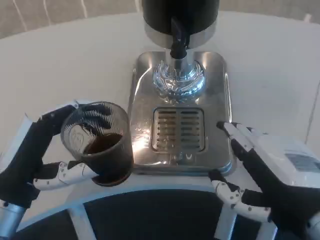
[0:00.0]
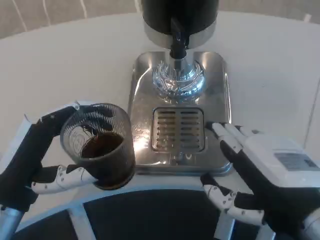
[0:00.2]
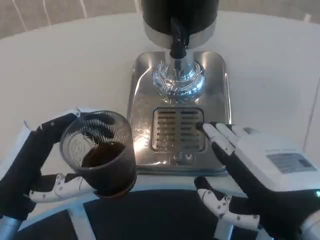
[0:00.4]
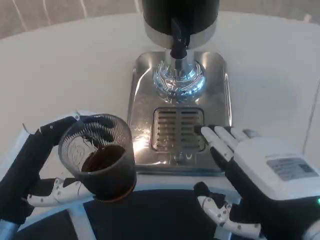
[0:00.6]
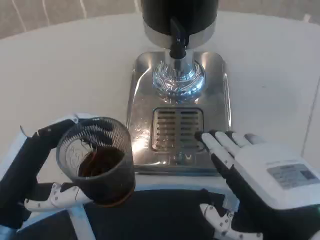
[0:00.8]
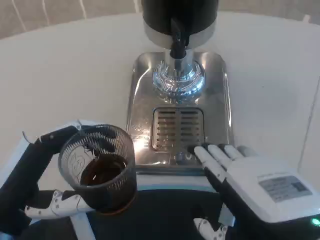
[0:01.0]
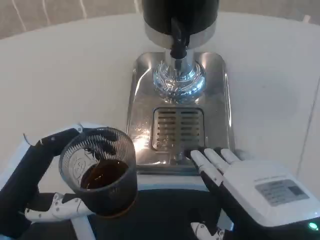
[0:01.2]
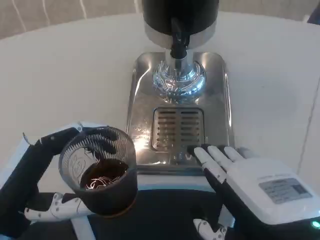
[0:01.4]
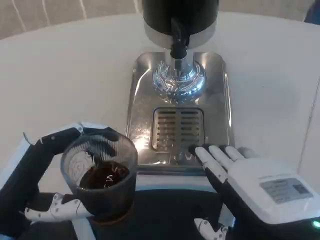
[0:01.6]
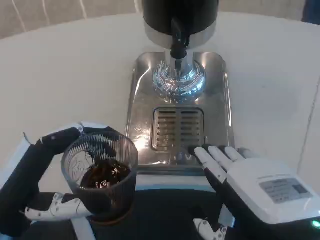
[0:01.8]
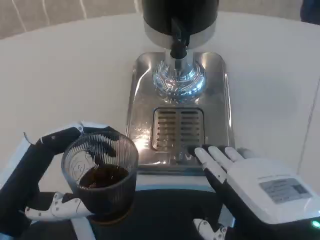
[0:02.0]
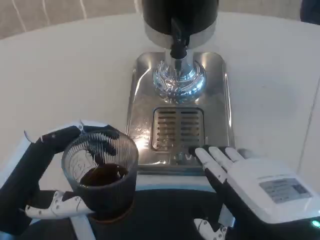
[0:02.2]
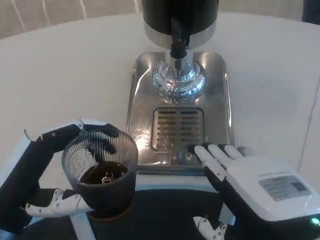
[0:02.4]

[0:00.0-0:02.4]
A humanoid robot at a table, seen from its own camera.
Task of the whole recording: Grasp the cup under the faucet to collect the drink, then remove the cup.
0:01.2 to 0:02.4: Both hands stay put.

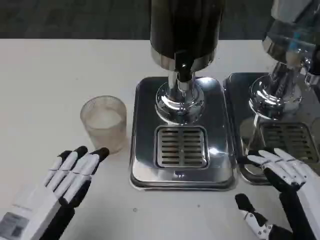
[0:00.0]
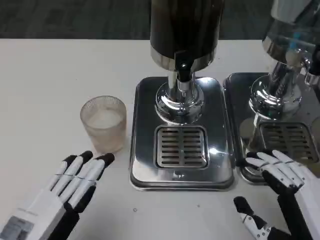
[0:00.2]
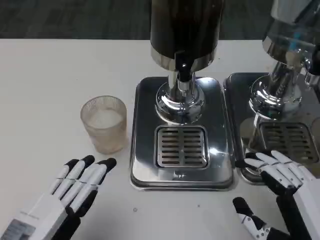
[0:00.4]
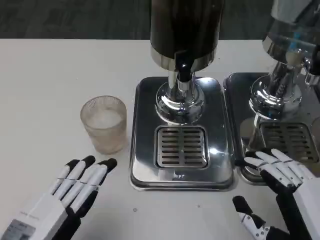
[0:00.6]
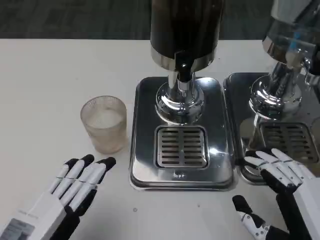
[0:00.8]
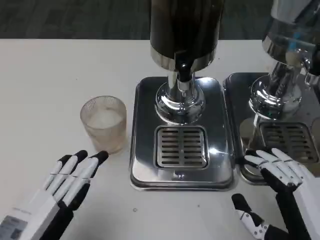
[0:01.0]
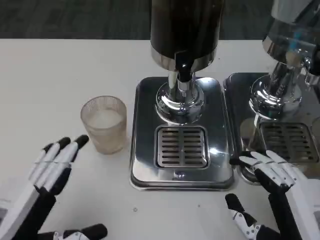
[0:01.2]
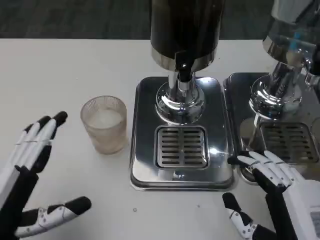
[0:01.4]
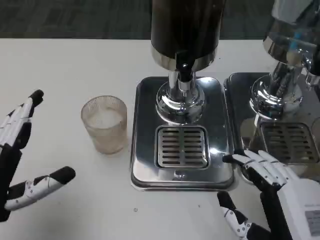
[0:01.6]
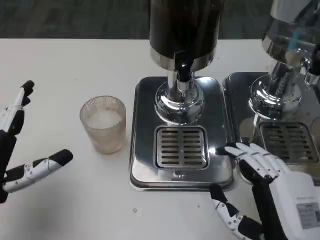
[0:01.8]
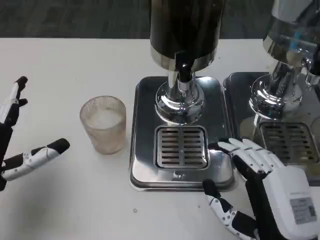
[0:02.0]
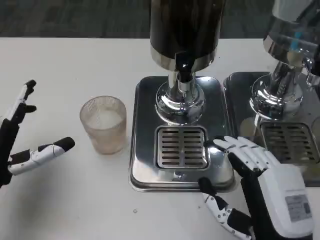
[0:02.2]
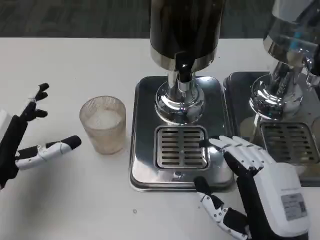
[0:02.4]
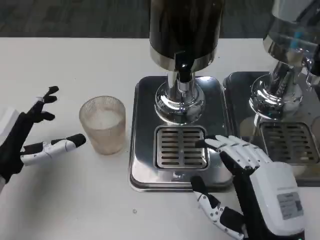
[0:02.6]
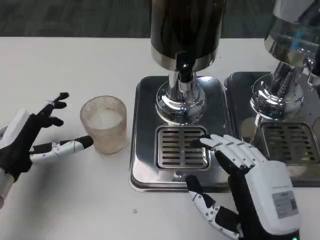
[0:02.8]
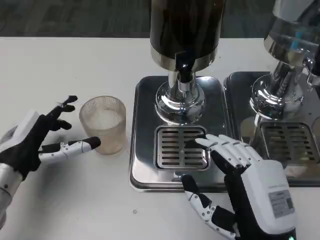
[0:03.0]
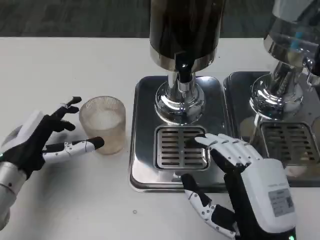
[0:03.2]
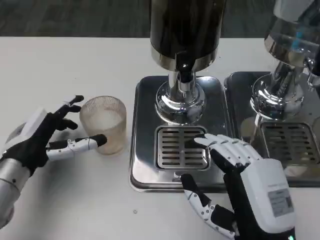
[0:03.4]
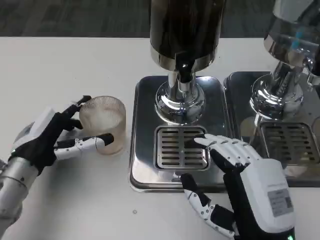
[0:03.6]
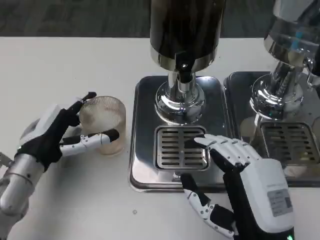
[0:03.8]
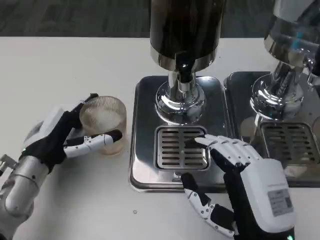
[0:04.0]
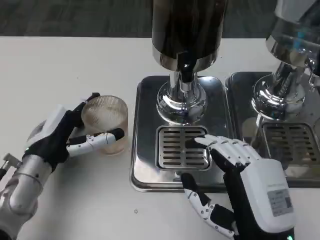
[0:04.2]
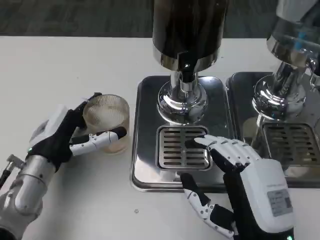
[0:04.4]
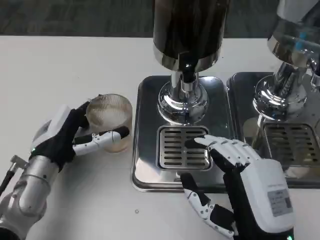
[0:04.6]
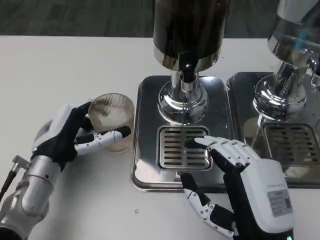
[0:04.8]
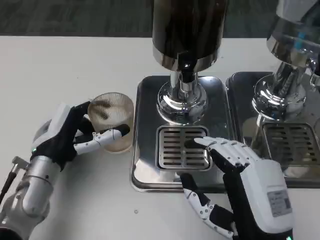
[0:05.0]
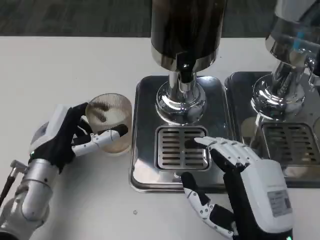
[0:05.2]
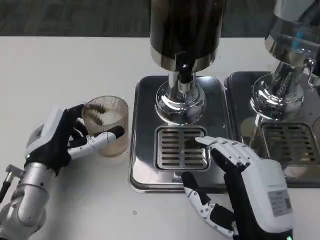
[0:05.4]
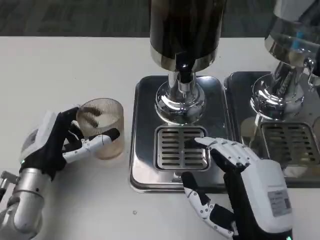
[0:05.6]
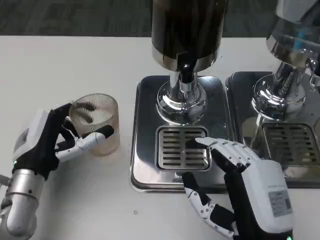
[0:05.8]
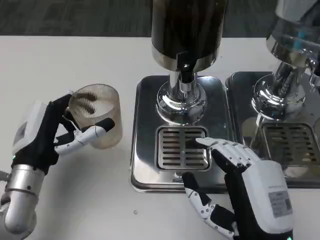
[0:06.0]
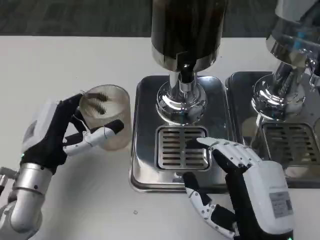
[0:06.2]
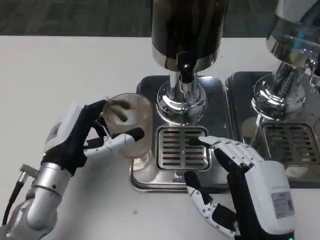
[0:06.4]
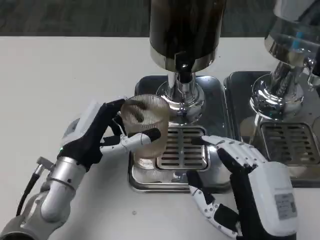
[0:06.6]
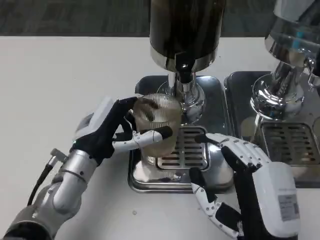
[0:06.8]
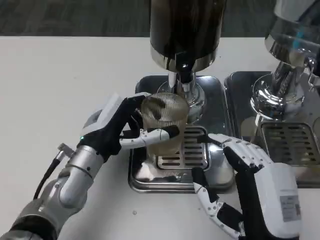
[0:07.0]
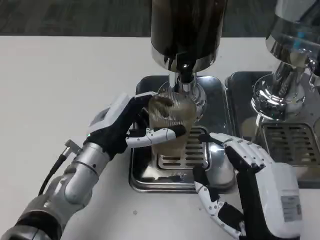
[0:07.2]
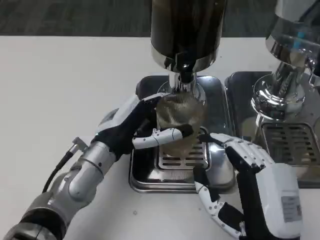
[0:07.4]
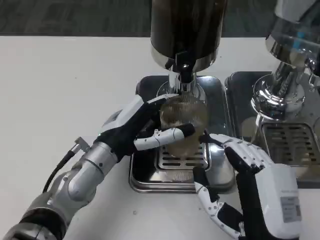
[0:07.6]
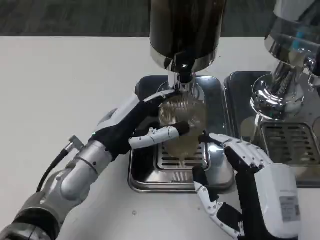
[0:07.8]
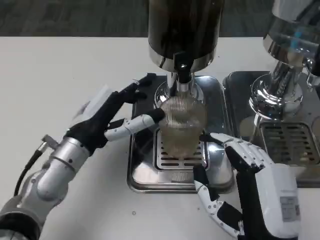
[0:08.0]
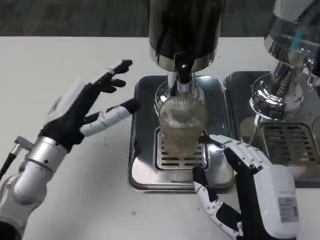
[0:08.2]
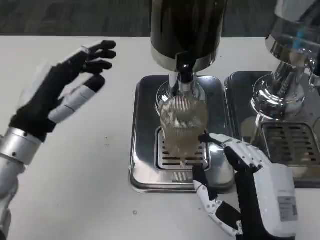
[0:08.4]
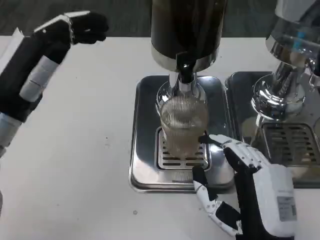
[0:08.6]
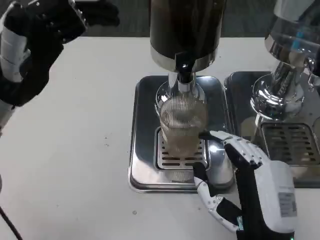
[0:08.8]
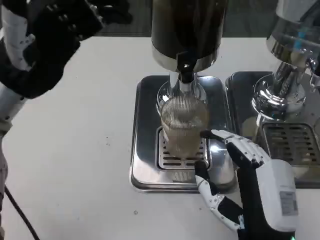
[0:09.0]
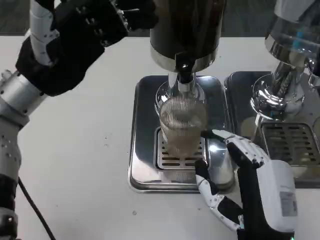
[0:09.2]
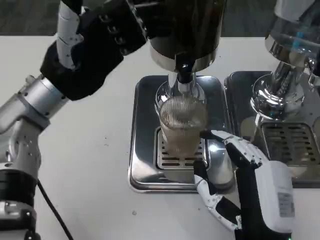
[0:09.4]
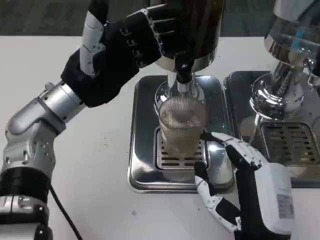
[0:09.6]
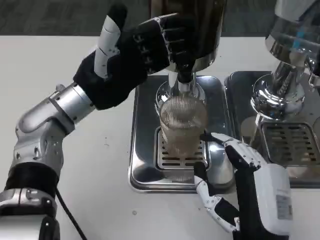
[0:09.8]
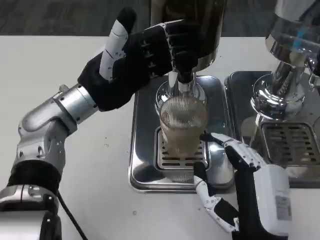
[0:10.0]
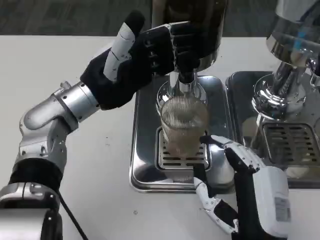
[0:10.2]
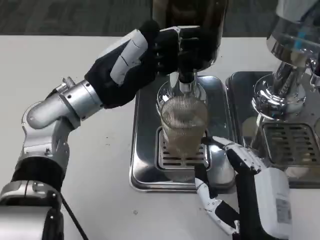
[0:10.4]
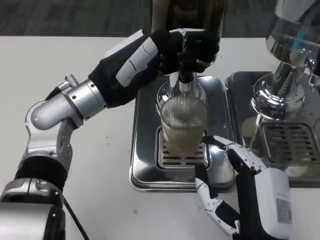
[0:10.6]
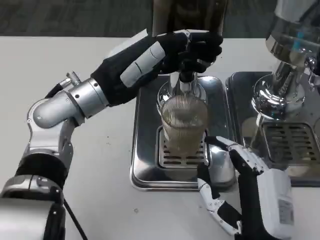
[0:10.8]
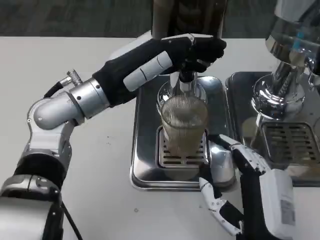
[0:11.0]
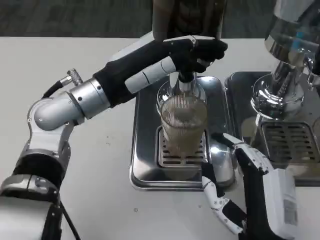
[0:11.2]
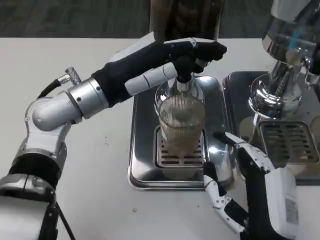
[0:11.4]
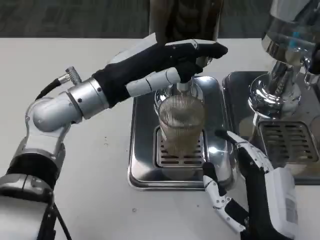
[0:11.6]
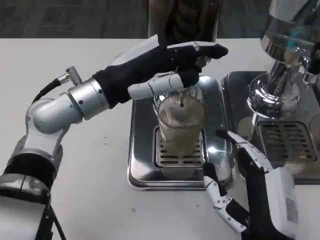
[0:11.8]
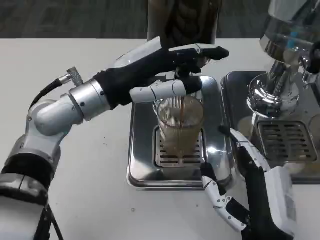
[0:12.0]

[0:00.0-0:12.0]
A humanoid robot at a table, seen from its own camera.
Task of the whole recording: Grasp the cup under the faucet to collect the drink, then remove the cup.
0:00.0 to 0:01.6: The left hand goes some 5 cm forward.
0:01.6 to 0:03.0: The left hand heads forward, covering approximately 10 cm.
0:03.0 to 0:04.4: The left hand changes place by approximately 5 cm.
0:04.4 to 0:06.0: The hands make only small movements.
0:06.0 to 0:07.6: The left hand travels to the right by about 10 cm.
0:07.6 to 0:09.0: The left hand is displaced upward and to the left by roughly 15 cm.
0:09.0 to 0:10.4: The left hand heads to the right, covering about 5 cm.

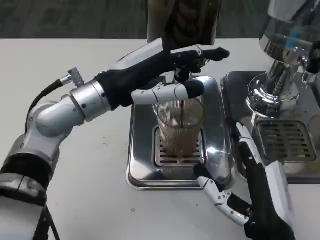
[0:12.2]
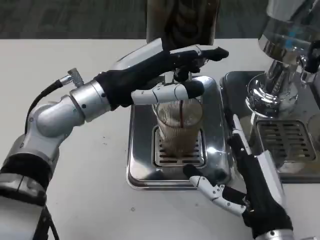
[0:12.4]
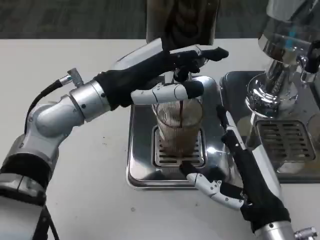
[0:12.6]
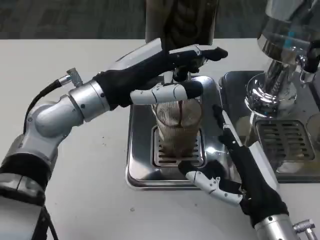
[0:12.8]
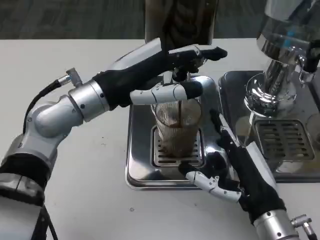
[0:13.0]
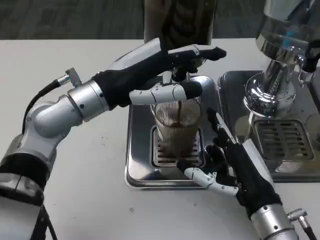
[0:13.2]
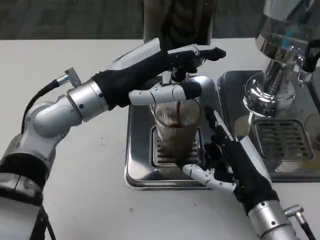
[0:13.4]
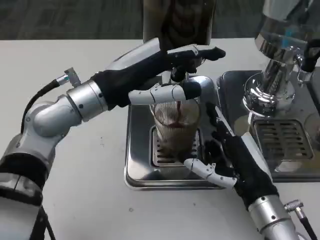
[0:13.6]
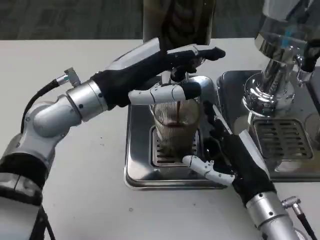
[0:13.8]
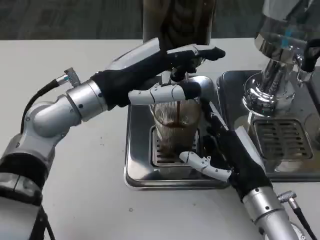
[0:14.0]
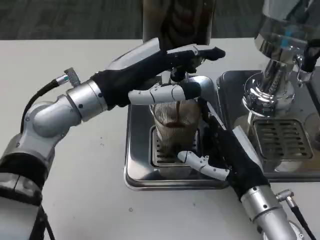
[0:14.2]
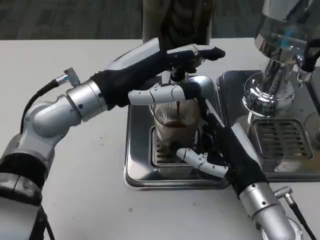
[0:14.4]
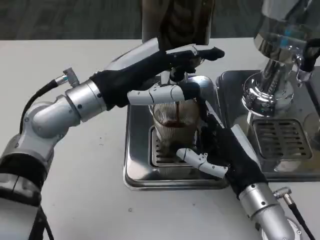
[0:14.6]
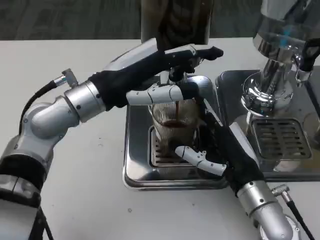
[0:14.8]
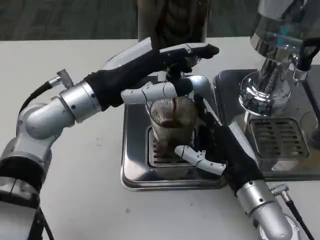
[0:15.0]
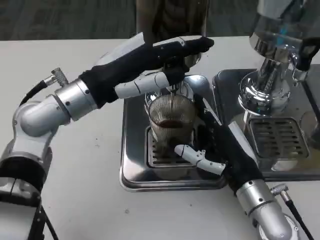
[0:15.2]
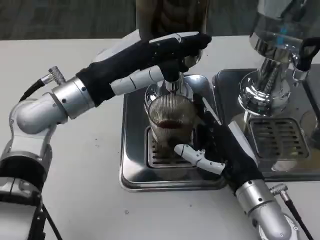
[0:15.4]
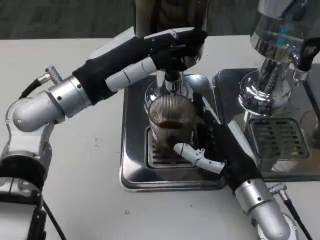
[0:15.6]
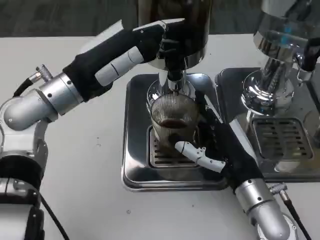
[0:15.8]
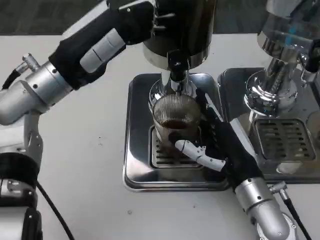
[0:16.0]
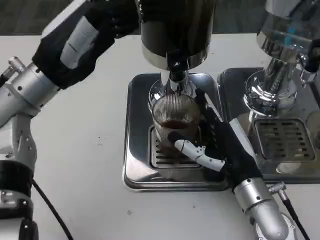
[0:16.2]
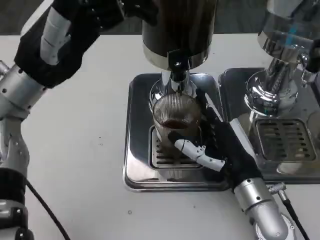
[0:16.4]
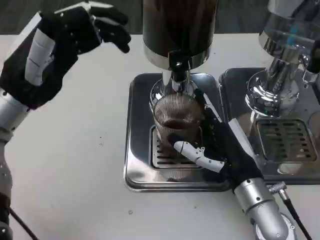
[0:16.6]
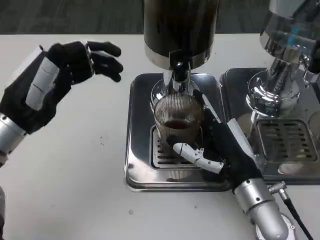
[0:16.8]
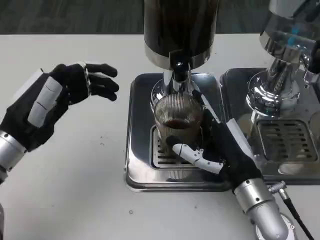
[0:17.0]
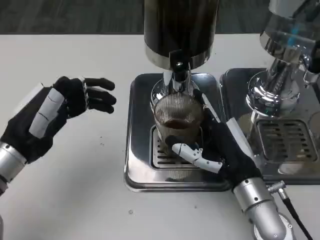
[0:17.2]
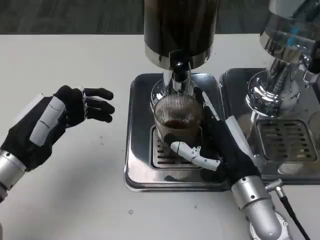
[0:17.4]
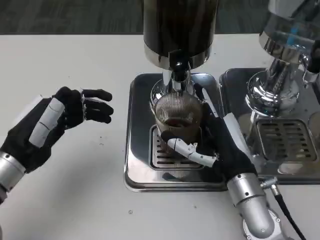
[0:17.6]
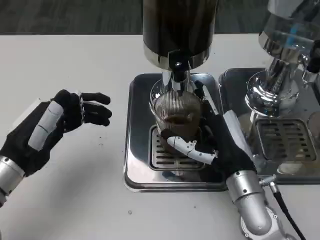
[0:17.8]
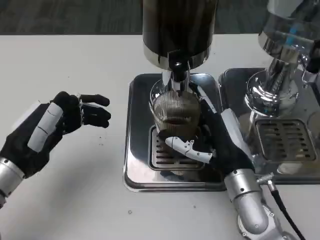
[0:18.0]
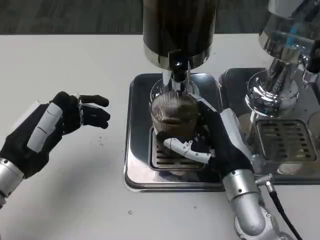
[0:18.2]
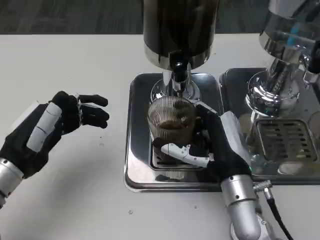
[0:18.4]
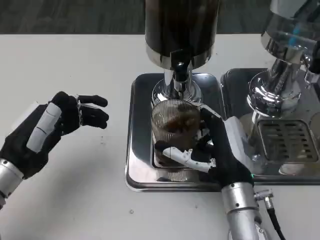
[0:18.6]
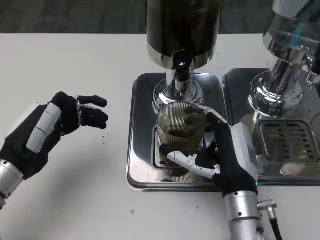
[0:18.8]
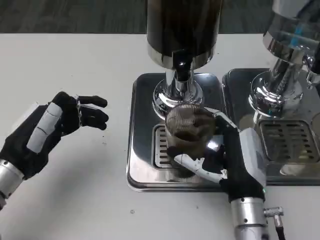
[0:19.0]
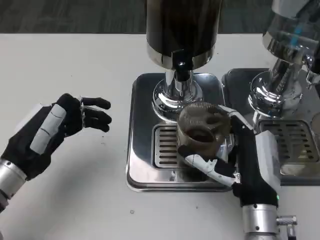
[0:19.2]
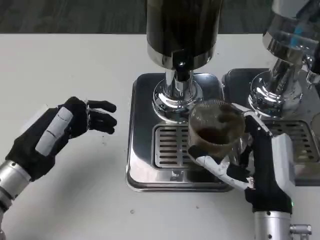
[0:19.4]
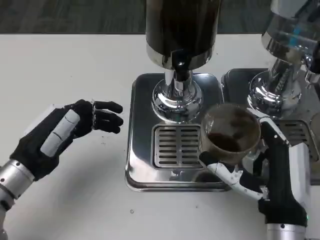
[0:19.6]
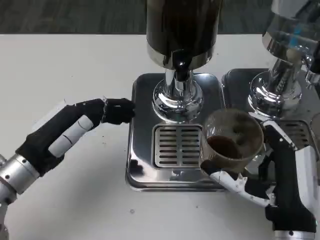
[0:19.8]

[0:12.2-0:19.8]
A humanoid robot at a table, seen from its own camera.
Task of the whole recording: Grasp the cup under the faucet to collect the drink, then remove the cup.
0:12.2 to 0:13.8: The right hand moves forward, approximately 10 cm.
0:15.2 to 0:16.8: The left hand heads to the left and backward, covering roughly 10 cm.
0:16.8 to 0:18.2: The left hand travels downward by about 5 cm.
0:18.2 to 0:19.8: The right hand moves backward, some 10 cm.
